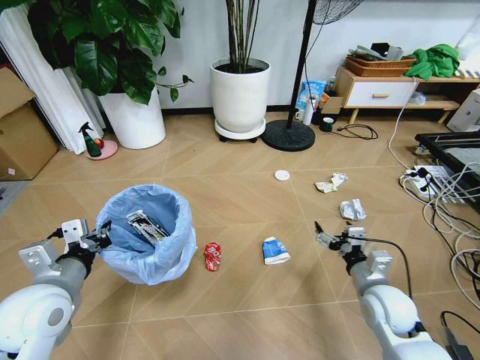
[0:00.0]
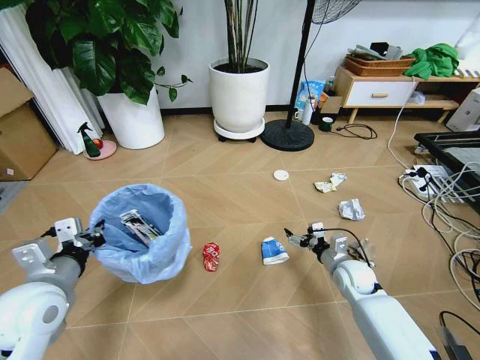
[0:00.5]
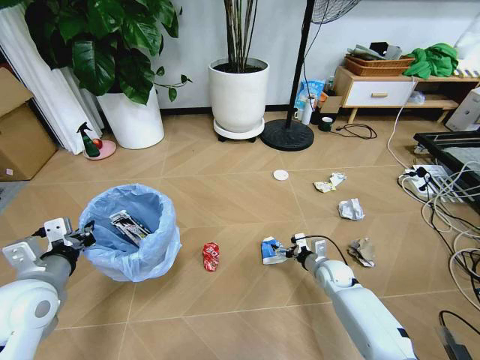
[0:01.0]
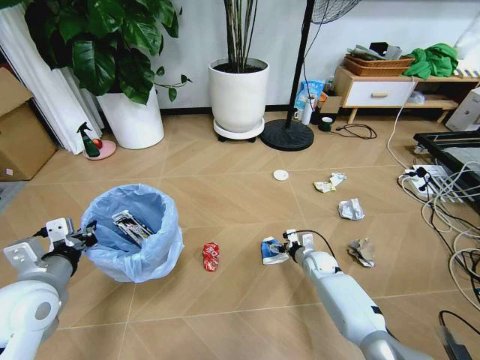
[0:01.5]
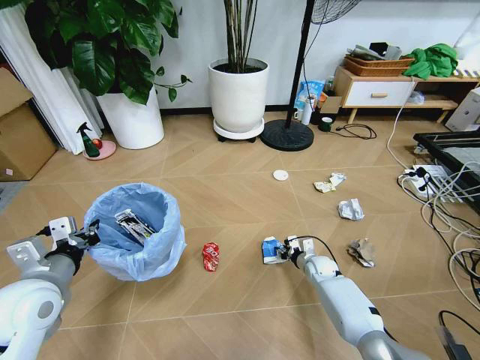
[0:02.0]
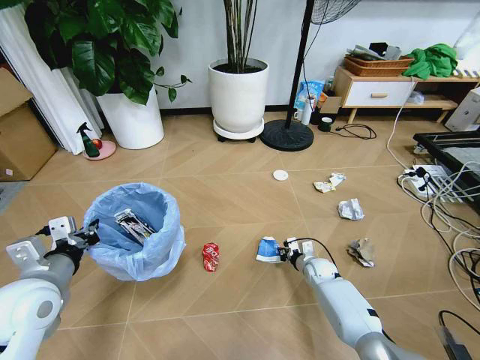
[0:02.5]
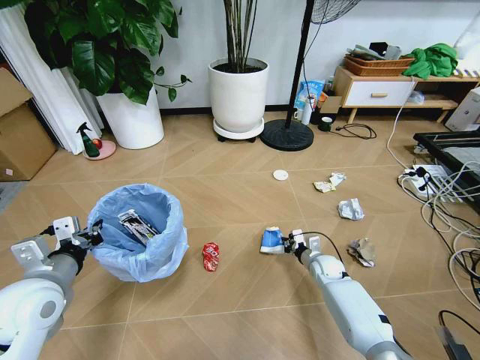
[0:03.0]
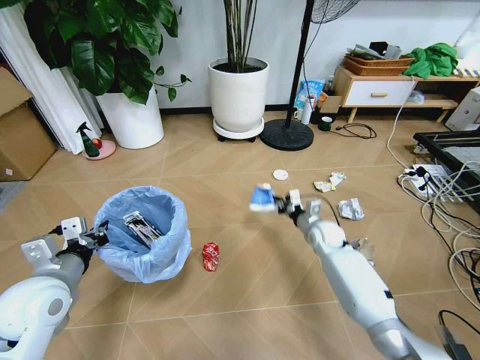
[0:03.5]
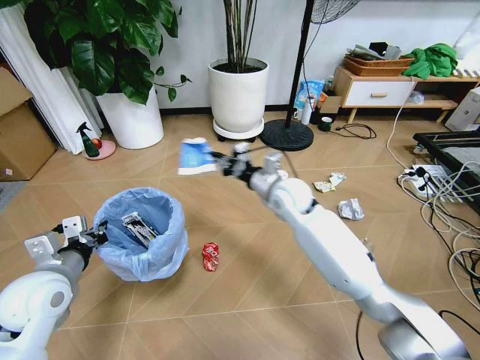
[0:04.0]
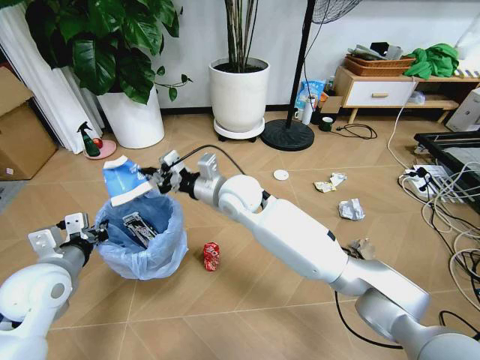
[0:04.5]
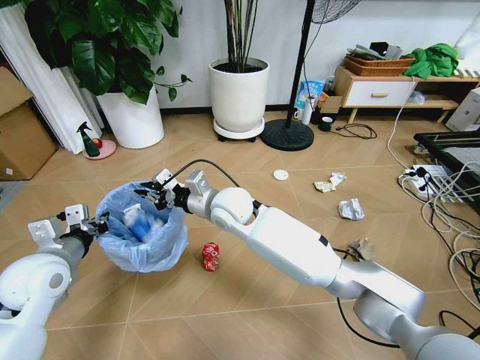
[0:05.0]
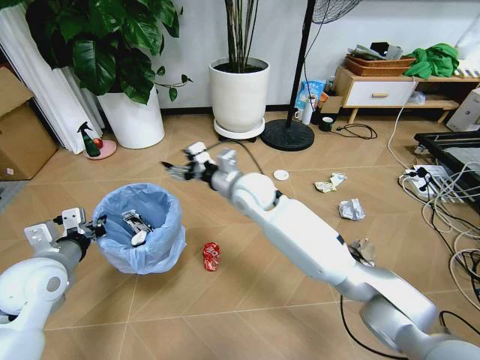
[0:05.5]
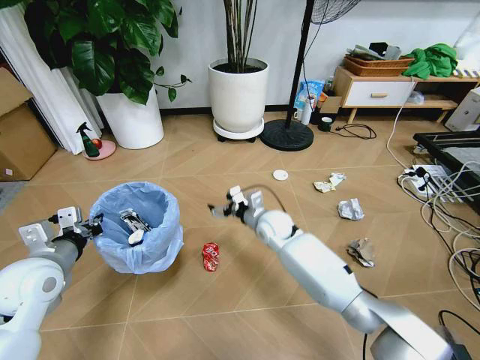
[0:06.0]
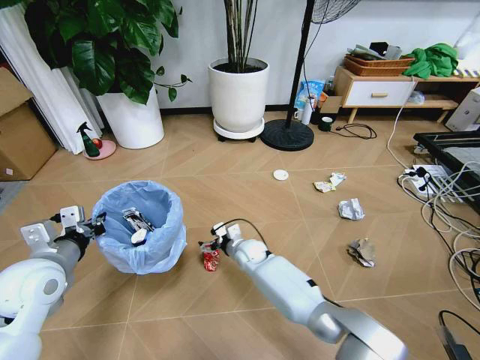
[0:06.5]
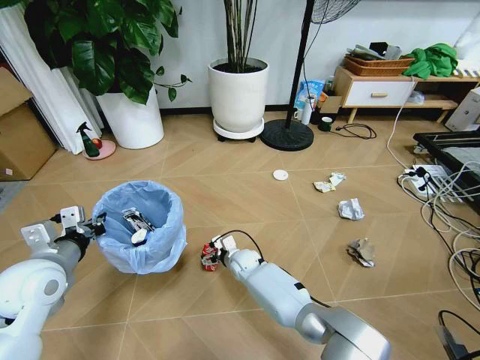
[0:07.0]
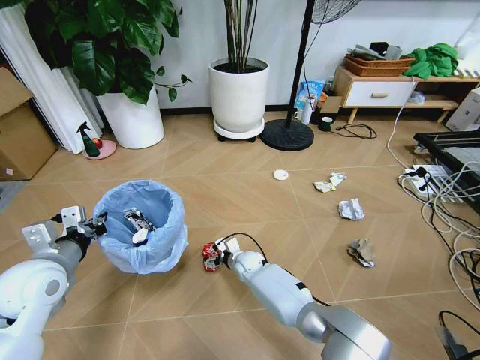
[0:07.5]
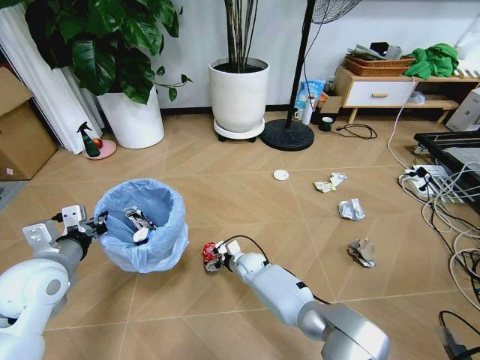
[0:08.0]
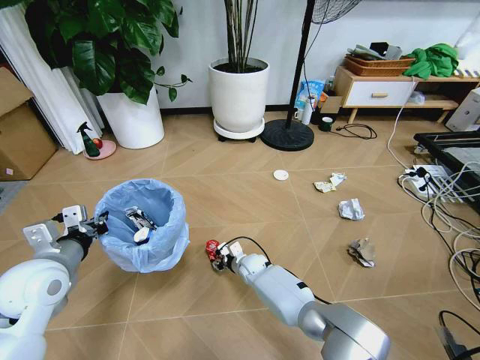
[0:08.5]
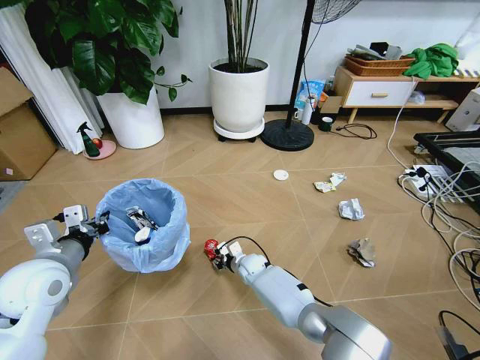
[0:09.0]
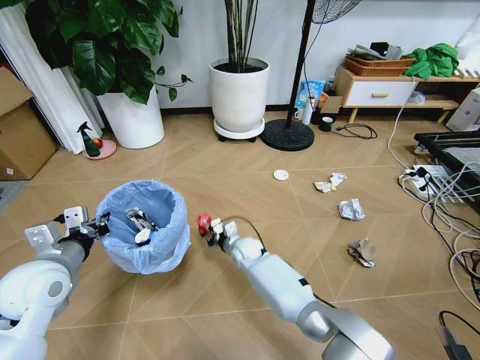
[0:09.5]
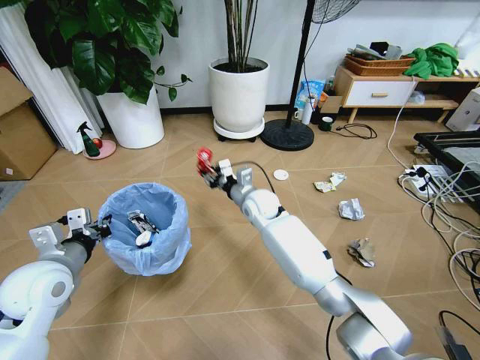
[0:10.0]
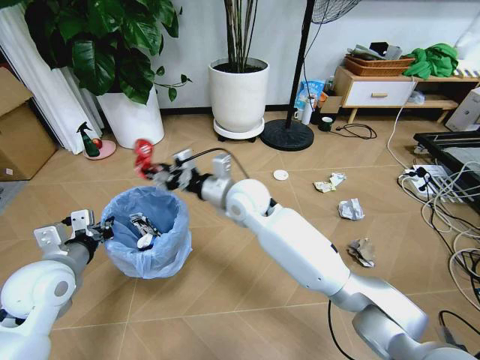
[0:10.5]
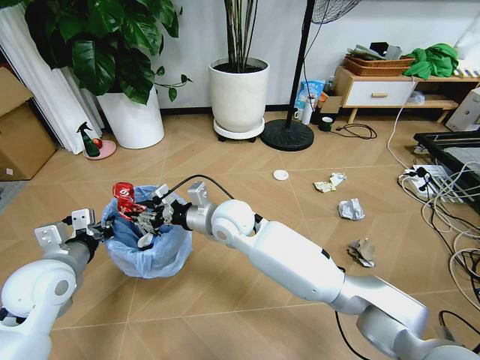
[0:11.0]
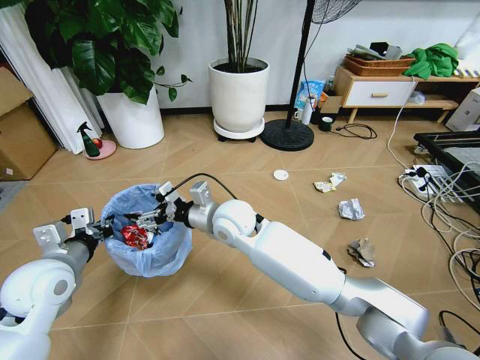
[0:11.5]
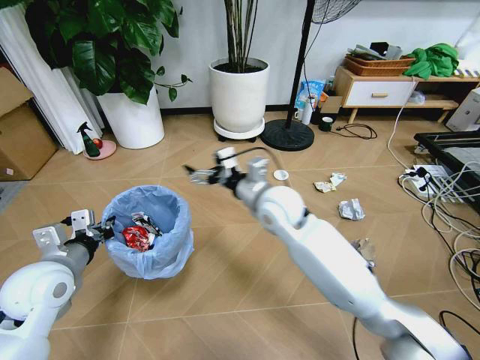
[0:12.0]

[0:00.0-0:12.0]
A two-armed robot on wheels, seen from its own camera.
Task of the whole recording: Pick up the trash bin and place the garbage on the floor into it.
0:00.0 to 0:02.0: The right gripper heads downward and forward, covering approximately 25 cm, and closes.
0:02.0 to 0:04.0: The right gripper moves upward and to the left, about 35 cm, and closes.
0:04.0 to 0:06.0: The right gripper shifts about 10 cm downward, and opens its fingers.
0:06.0 to 0:08.0: The right gripper is displaced downward by roughly 20 cm.
0:08.0 to 0:10.0: The right gripper goes roughly 25 cm upward, and closes.
0:10.0 to 0:12.0: The right gripper travels upward and backward by roughly 15 cm, and opens.

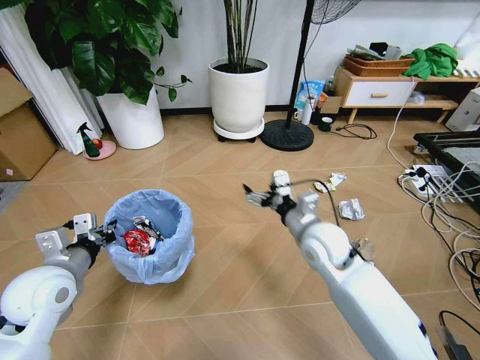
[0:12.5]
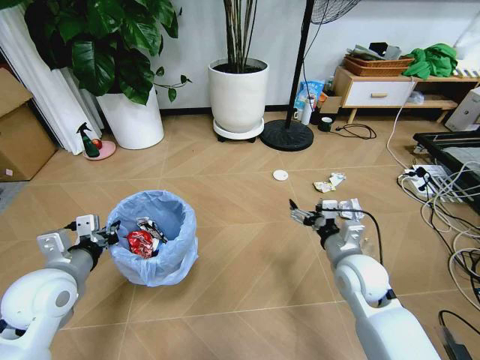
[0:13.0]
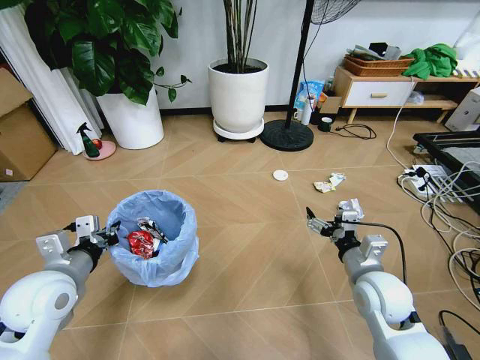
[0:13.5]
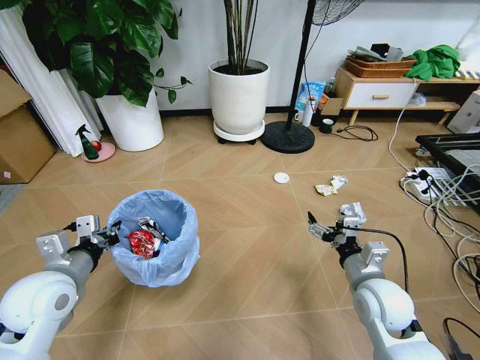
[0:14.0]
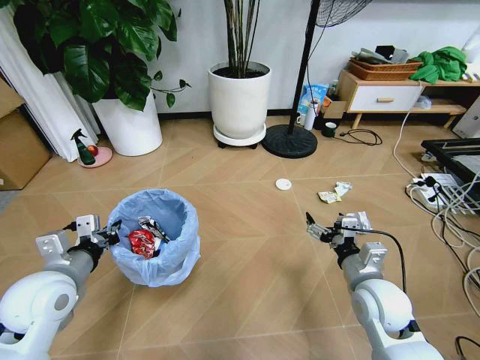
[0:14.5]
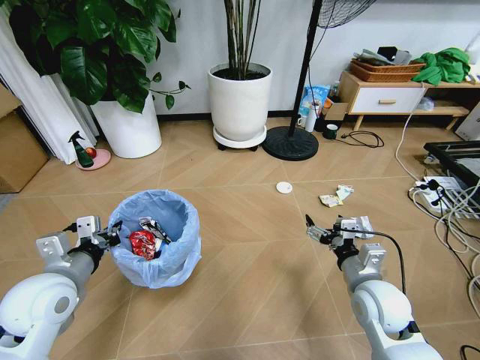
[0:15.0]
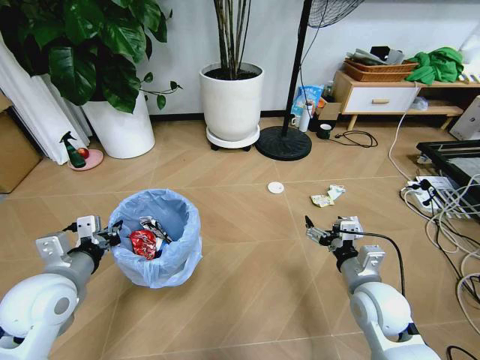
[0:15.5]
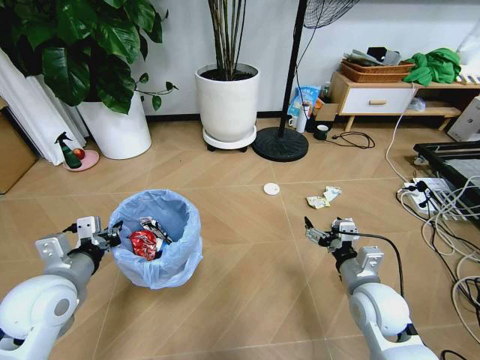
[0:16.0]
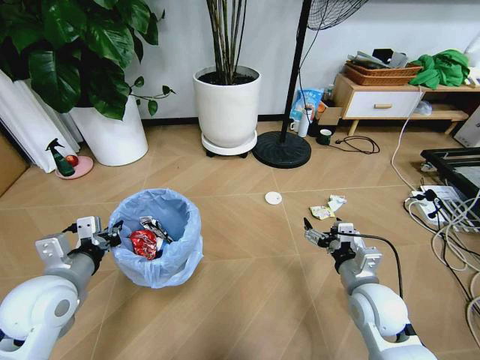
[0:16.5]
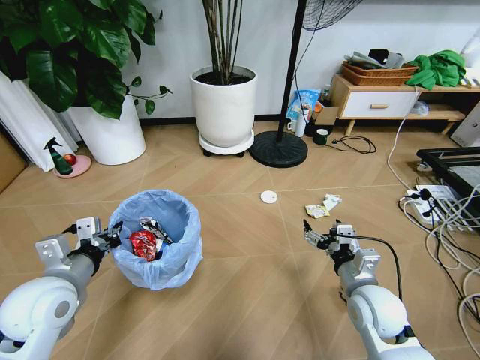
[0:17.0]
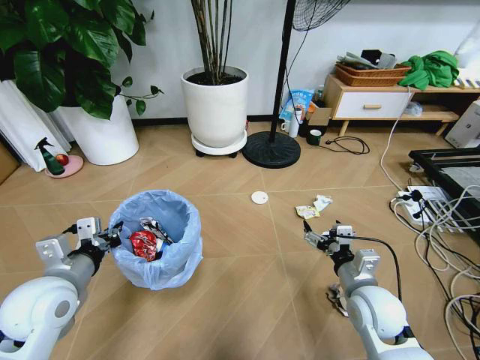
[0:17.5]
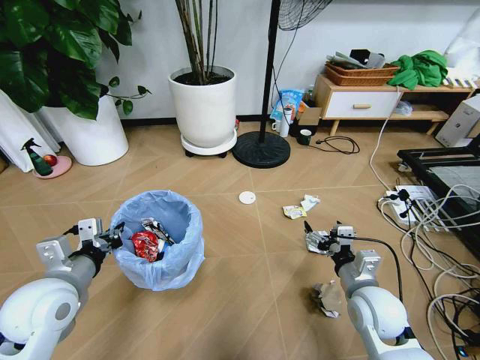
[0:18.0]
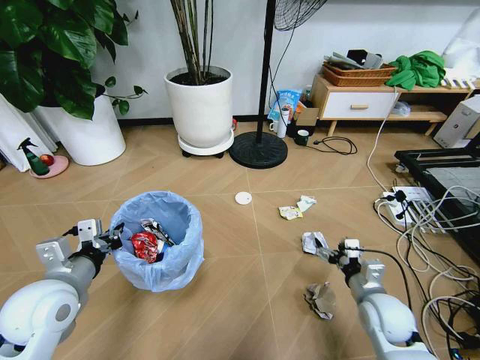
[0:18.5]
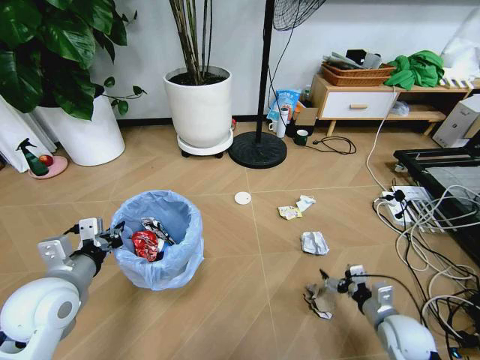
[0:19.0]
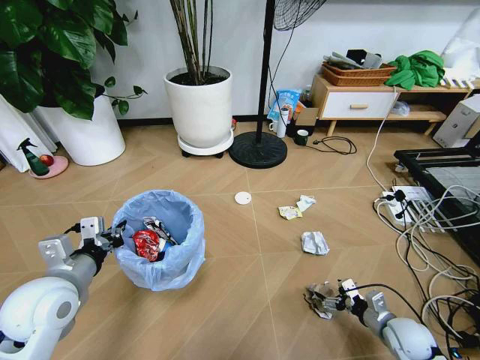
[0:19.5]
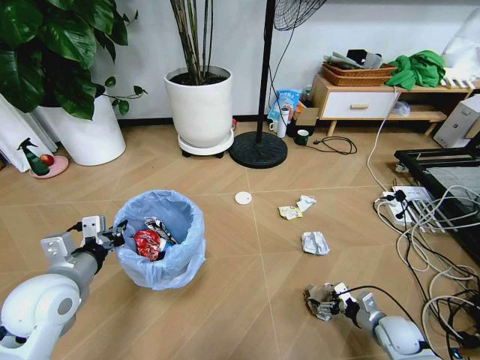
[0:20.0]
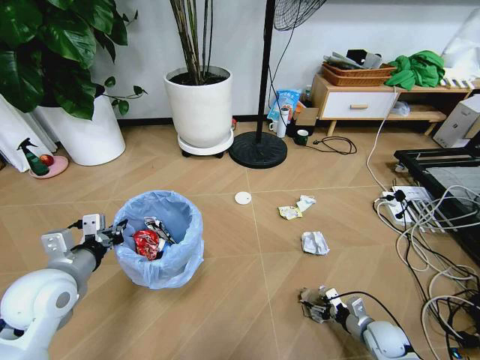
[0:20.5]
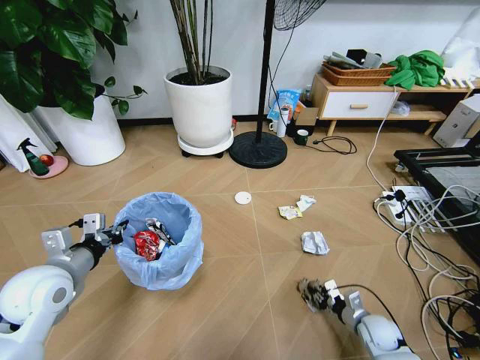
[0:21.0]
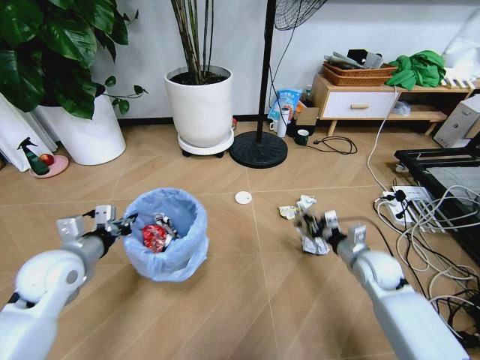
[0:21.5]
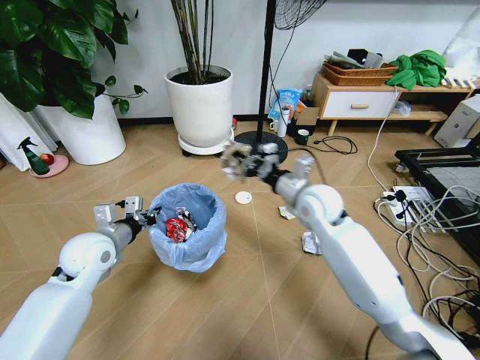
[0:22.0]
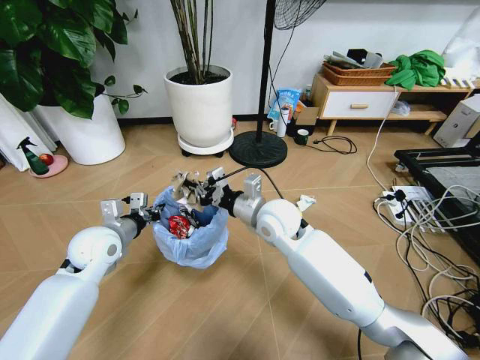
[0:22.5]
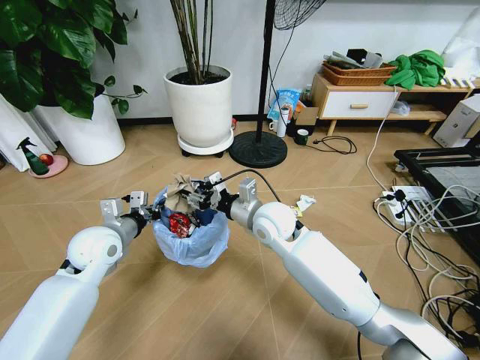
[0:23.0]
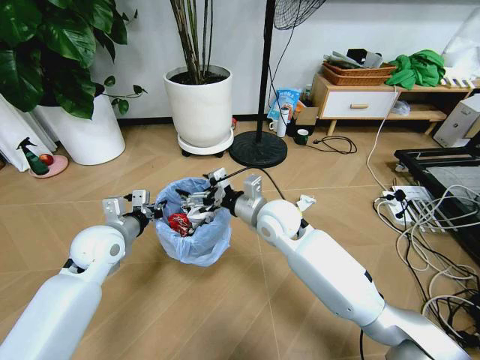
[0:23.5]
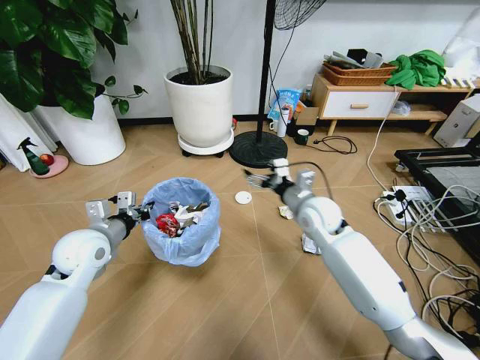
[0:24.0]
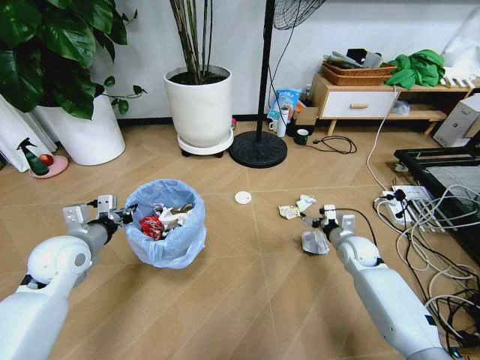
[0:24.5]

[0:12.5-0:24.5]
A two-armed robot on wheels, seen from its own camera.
Task of the whole recording: Pick up the trash bin and place the garbage on the floor into it.
0:12.5 to 0:14.5: The right gripper shifts about 15 cm backward and to the right.
0:16.5 to 0:18.5: The right gripper shifts some 5 cm downward.
0:18.5 to 0:20.5: The right gripper is displaced downward and to the right by approximately 20 cm.
0:20.5 to 0:22.5: The left gripper moves forward, about 10 cm. The right gripper goes roughly 50 cm upward, to the left and forward, and closes up.
0:22.5 to 0:24.5: The left gripper shifts by some 5 cm; the right gripper moves to the right and downward, some 30 cm, and opens.

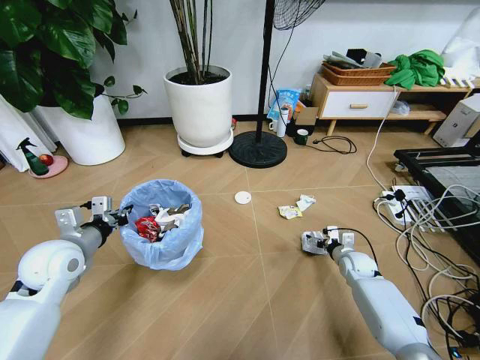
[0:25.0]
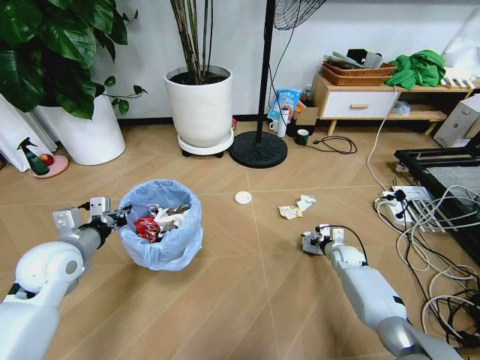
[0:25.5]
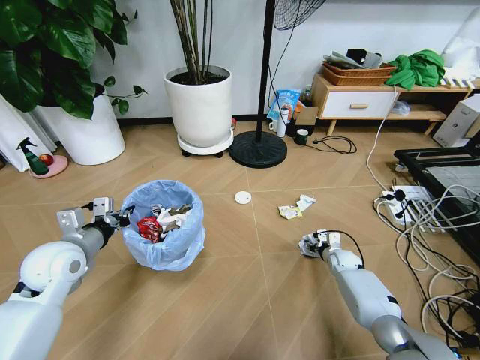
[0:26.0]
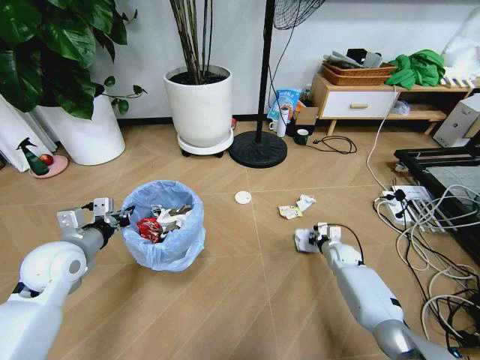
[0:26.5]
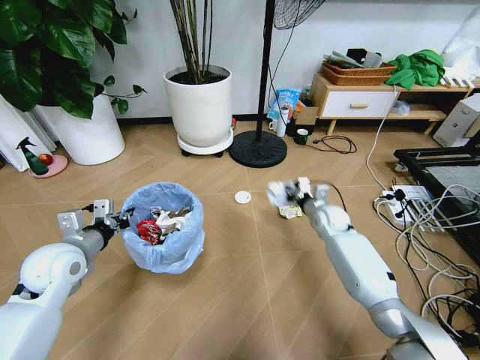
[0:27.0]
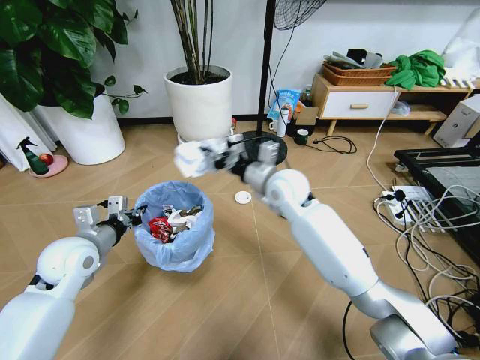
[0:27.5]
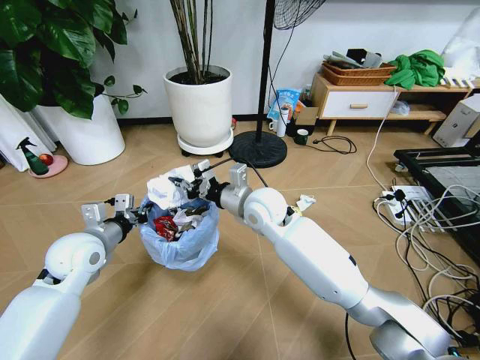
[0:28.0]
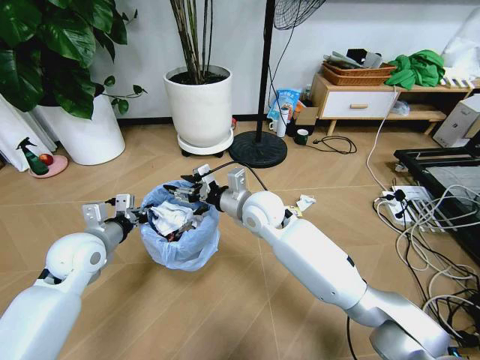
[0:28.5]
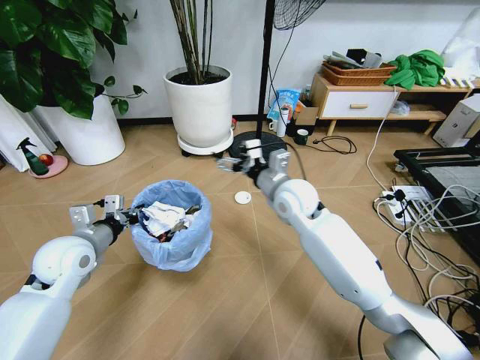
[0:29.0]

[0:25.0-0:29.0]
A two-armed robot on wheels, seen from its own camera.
Task of the whole recording: Pick up the trash bin and place the garbage on the floor into it.
0:25.0 to 0:27.0: The right gripper goes roughly 20 cm upward, to the left and forward, and closes.
0:27.0 to 0:29.0: The right gripper heads upward, to the left and backward, covering roughly 20 cm, and opens.
